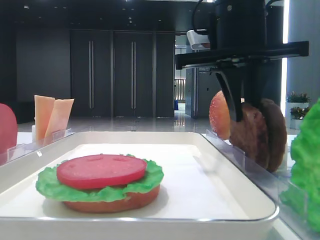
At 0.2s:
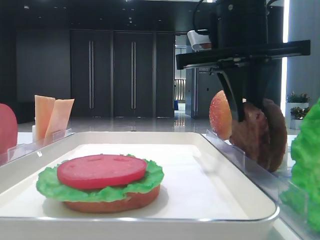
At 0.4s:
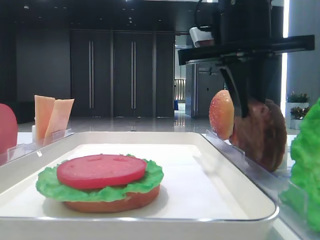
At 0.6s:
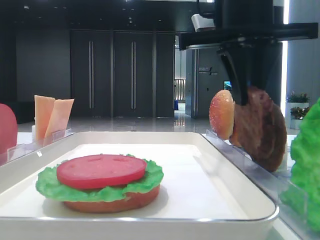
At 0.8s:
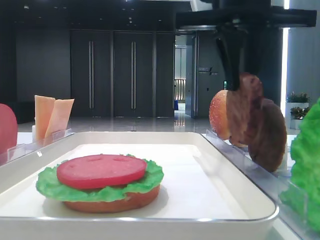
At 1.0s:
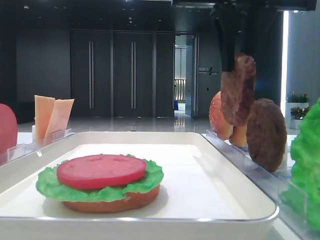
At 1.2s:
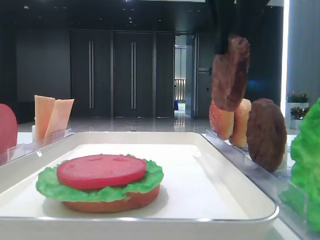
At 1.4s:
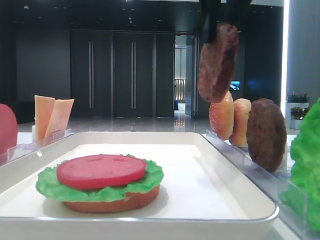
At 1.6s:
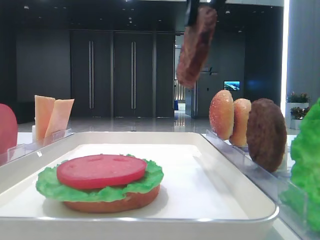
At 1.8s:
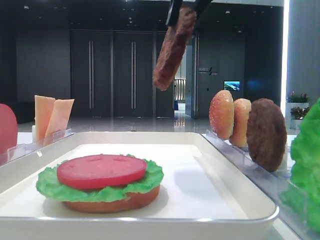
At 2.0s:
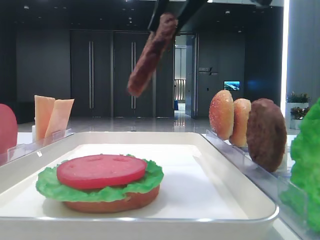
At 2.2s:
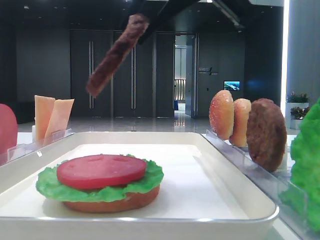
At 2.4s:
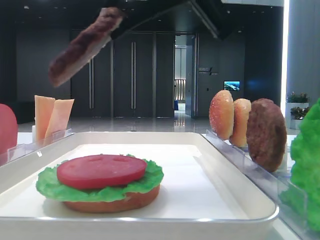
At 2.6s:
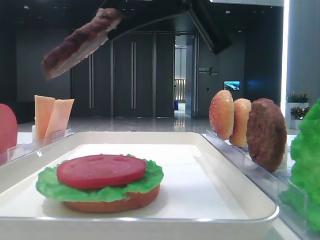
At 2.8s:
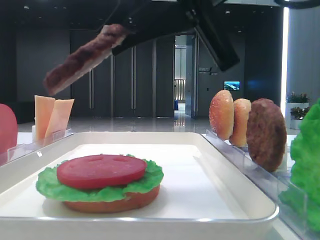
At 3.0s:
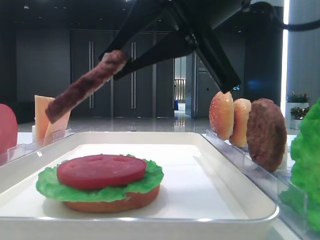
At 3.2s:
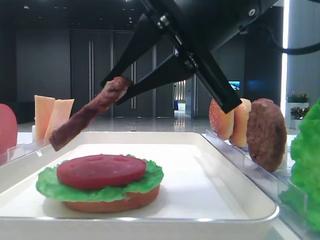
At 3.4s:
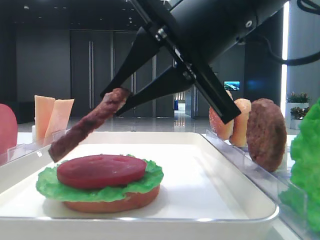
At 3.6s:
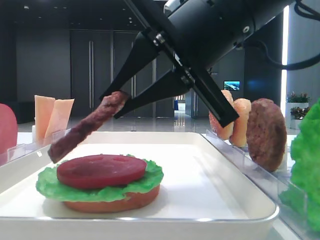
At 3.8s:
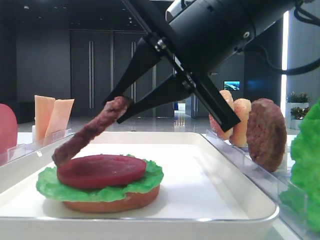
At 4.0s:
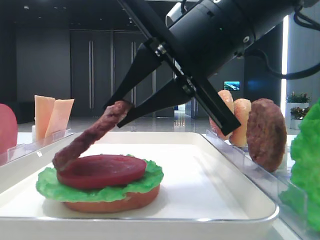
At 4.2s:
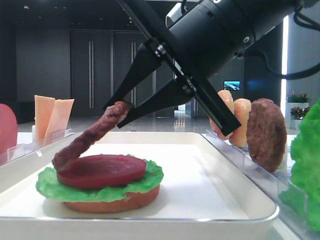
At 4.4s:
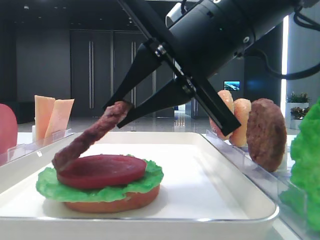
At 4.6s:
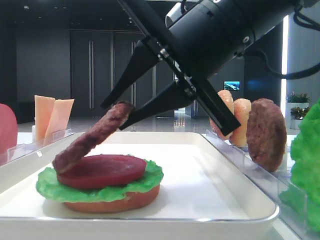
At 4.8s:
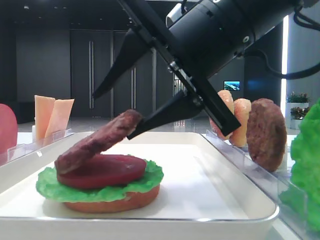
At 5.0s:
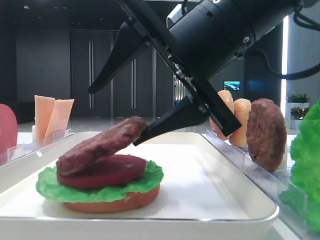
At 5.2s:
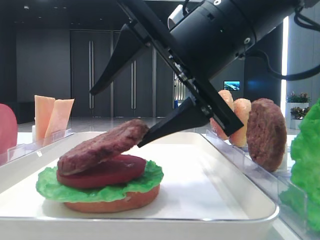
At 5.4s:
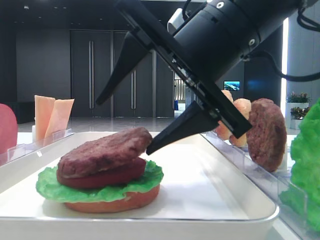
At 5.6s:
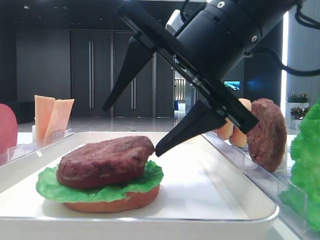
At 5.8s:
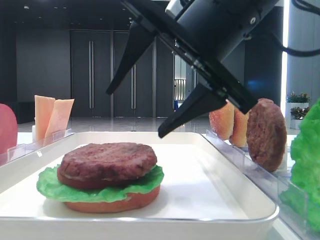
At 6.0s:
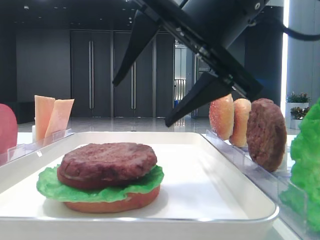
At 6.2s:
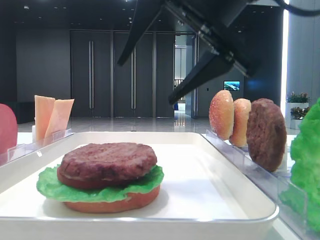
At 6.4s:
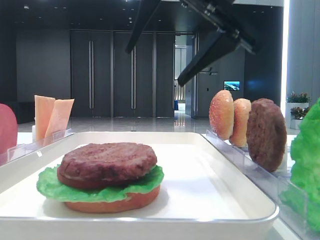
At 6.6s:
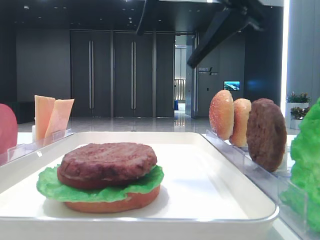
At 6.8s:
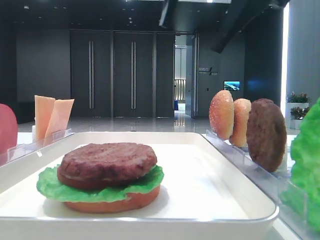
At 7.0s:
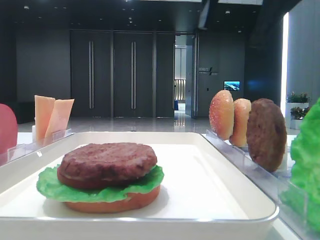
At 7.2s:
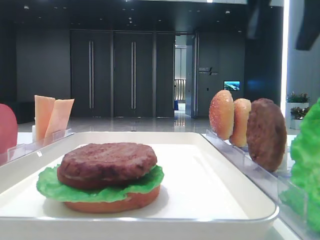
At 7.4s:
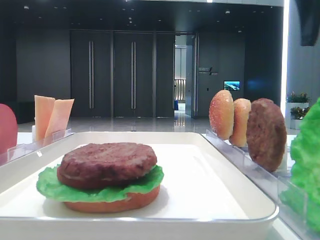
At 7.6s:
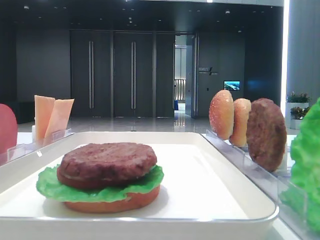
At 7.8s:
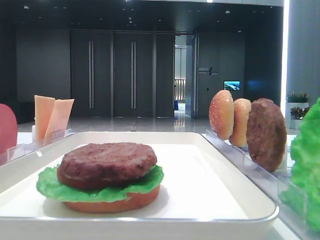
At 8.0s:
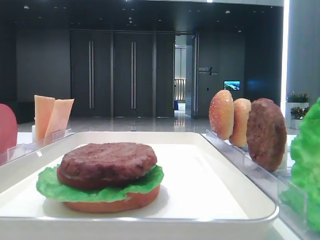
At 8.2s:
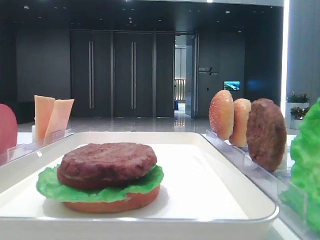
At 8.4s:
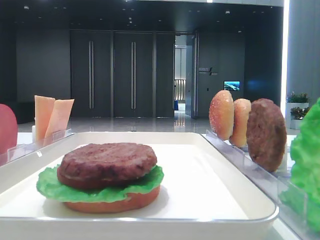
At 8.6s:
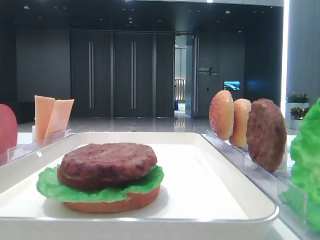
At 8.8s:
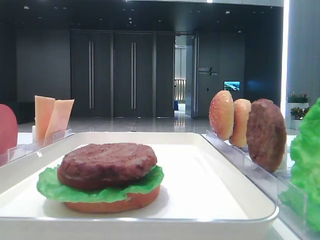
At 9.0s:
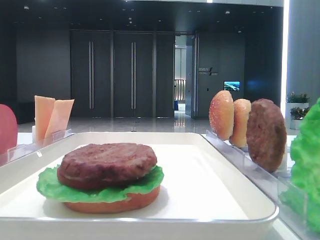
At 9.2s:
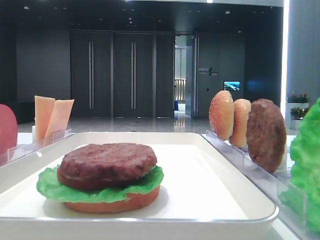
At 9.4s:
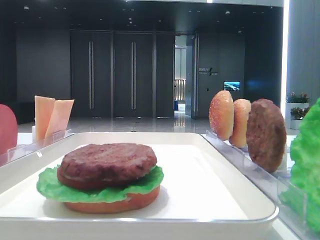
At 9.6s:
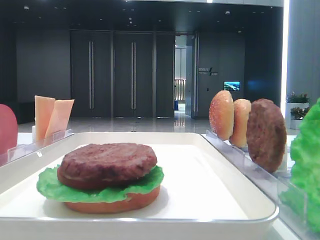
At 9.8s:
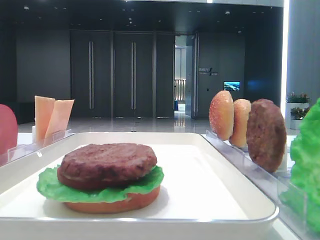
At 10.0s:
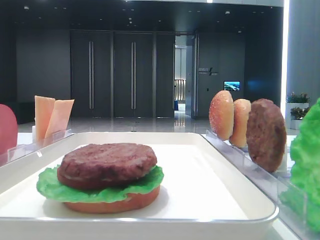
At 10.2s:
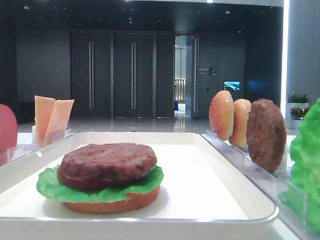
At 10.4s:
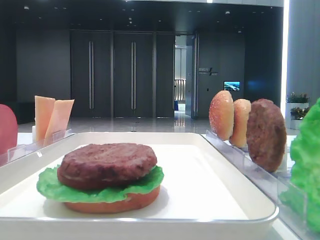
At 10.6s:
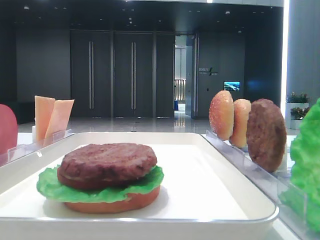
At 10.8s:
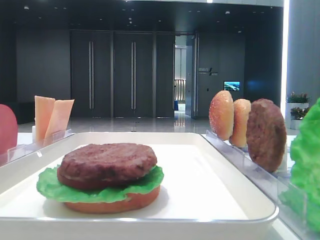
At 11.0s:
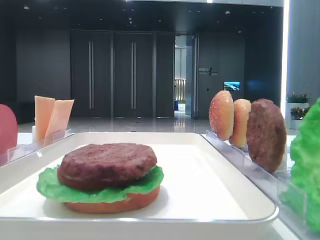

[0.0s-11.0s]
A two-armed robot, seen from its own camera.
Step, 0.0s to 5.6s: Place the patty on the tomato slice with the right hand.
0.0s to 1.6s: The right gripper moves upward and backward, roughly 10 cm.
1.6s to 3.2s: The right gripper is displaced downward by some 10 cm.
3.2s to 4.8s: The right gripper opens up.
4.8s to 6.2s: The right gripper moves approximately 5 cm.
6.2s to 7.8s: The right gripper moves to the right, roughly 25 cm.

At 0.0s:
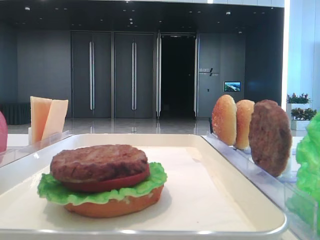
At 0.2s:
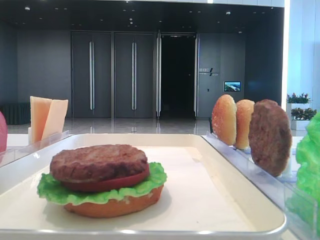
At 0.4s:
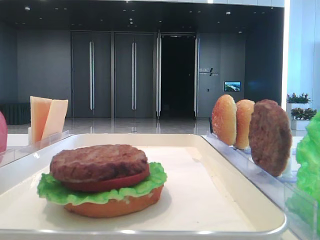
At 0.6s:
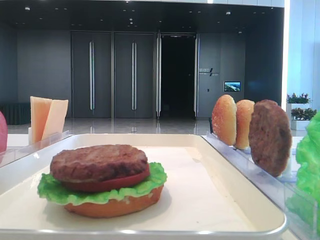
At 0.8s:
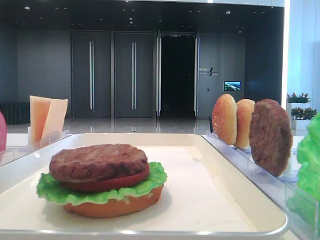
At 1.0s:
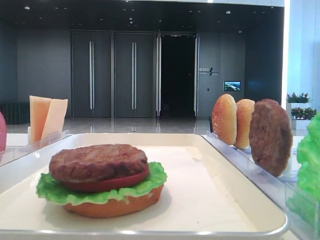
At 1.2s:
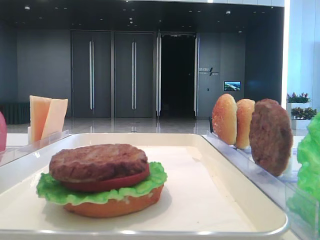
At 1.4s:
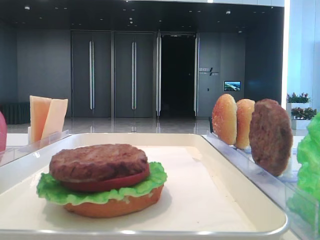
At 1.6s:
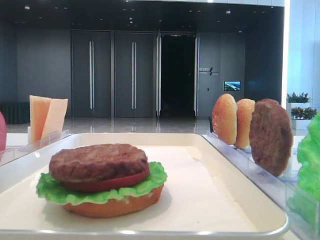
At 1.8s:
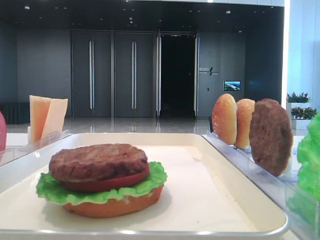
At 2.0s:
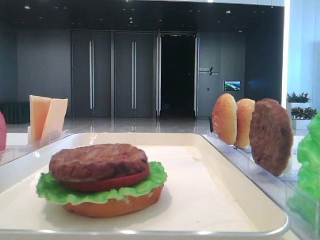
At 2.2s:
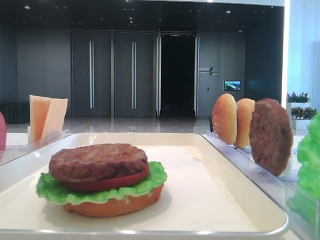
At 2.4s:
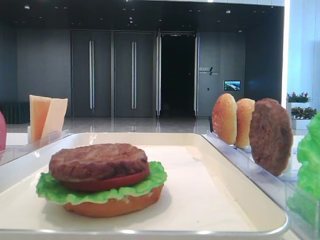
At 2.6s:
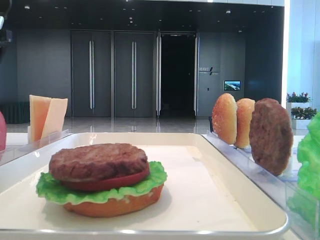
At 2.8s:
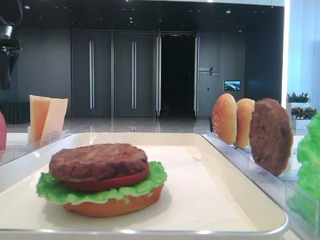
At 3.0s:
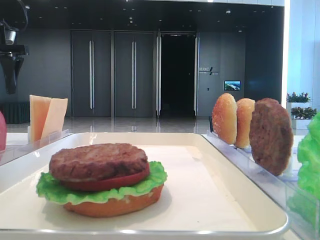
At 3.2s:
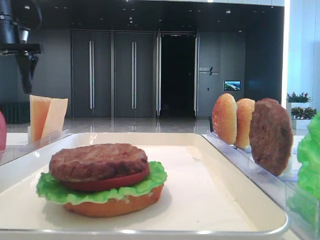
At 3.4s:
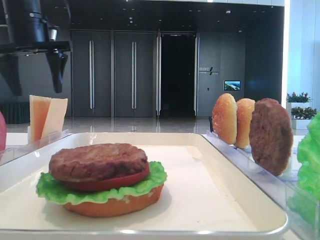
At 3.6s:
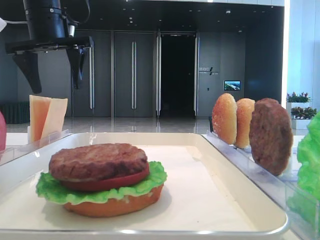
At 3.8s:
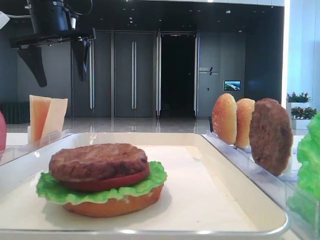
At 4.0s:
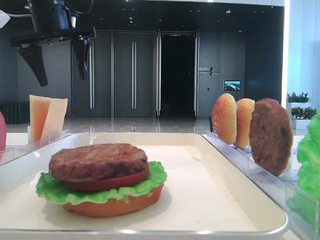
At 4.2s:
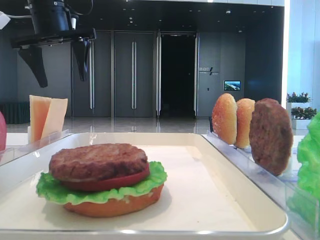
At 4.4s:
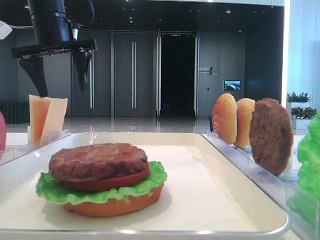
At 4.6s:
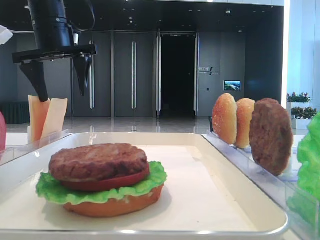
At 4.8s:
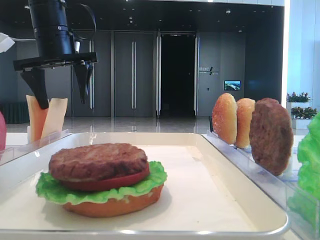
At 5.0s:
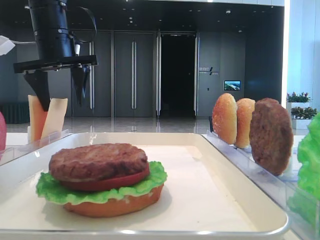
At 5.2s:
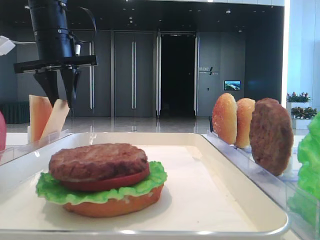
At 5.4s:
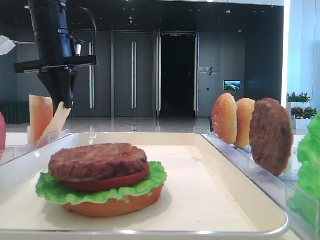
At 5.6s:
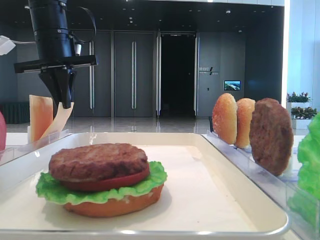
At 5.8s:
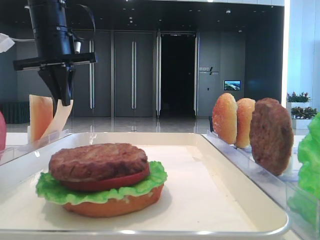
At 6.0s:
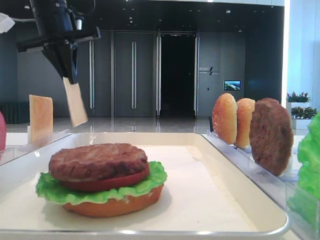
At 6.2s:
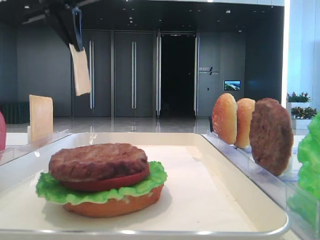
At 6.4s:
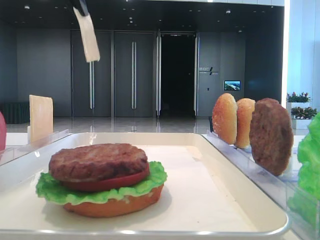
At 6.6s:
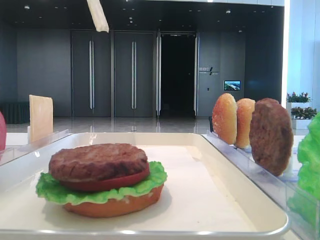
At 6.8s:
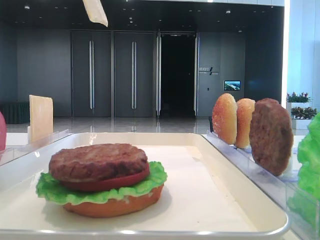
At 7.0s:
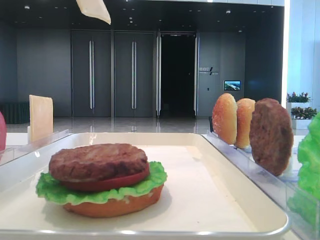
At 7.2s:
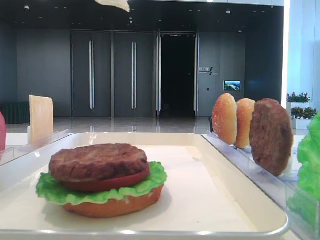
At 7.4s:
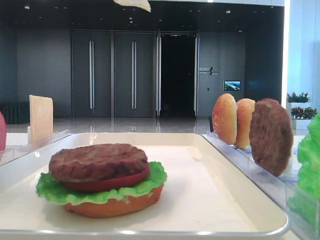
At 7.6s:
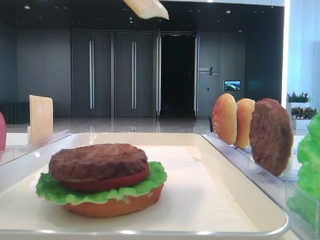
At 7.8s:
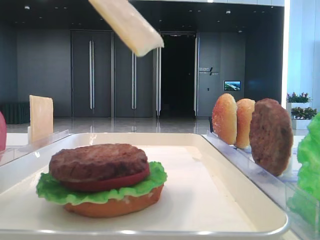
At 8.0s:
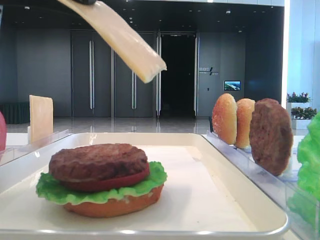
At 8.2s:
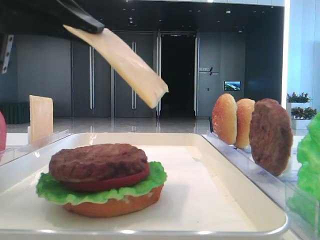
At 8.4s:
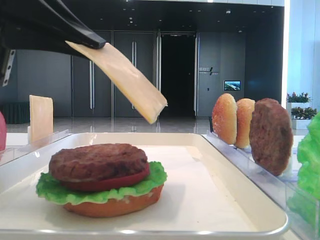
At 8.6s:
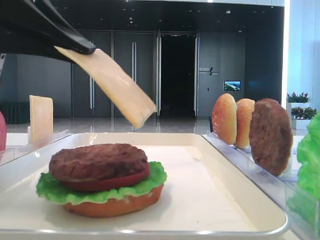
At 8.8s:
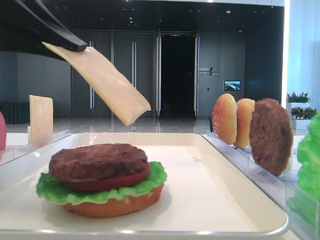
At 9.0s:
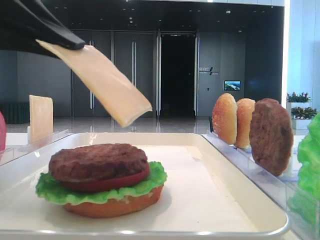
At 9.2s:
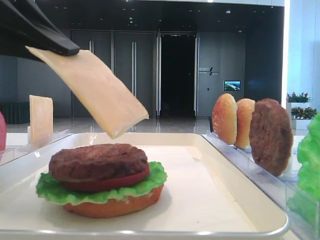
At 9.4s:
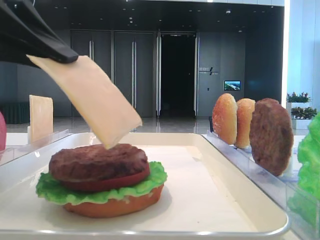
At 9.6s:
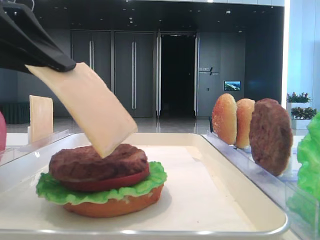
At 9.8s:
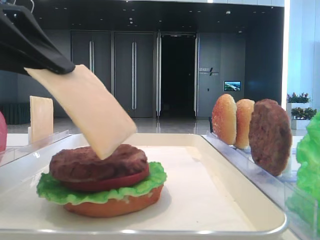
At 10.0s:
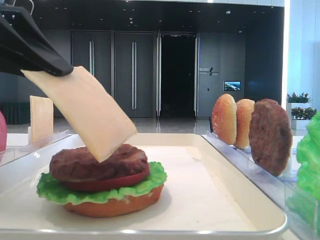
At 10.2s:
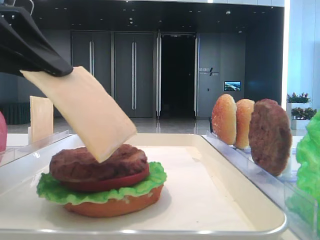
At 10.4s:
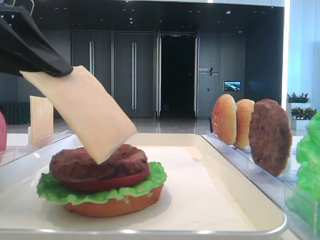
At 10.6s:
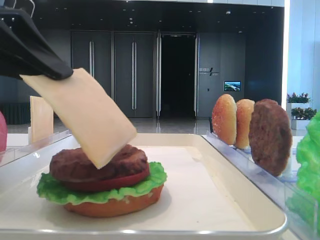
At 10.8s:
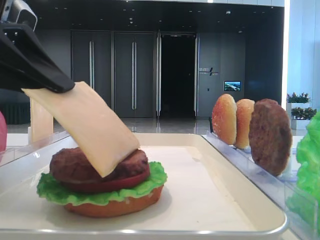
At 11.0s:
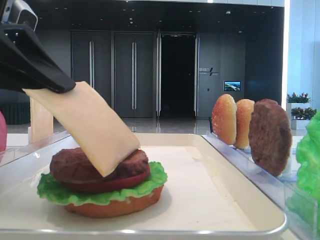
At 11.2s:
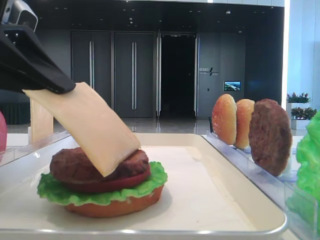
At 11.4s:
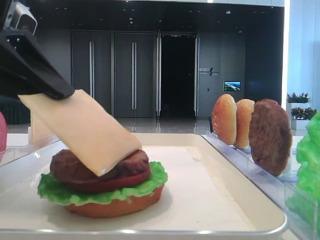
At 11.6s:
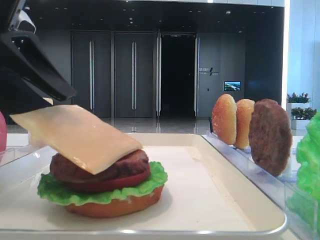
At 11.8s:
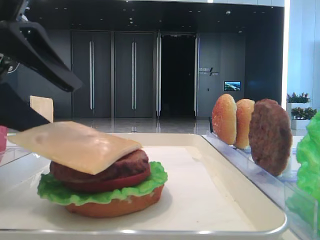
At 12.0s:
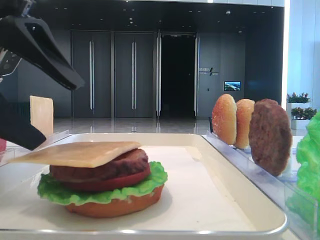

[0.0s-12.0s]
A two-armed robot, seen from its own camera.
Step, 0.0s to 5.4s: Pick up the cheese slice with the left hand.
Step, 5.8s to 11.8s: Place the cheese slice on the patty with the left hand.
1.6s to 3.0s: The left gripper moves forward, about 35 cm.
3.0s to 4.4s: The left gripper moves to the right, some 10 cm.
4.4s to 6.0s: The left gripper closes.
6.0s to 7.6s: The left gripper moves backward, some 25 cm.
7.6s to 9.0s: The left gripper travels downward by roughly 10 cm.
9.0s to 10.4s: The grippers move only a little.
10.4s to 12.0s: The left gripper opens.
